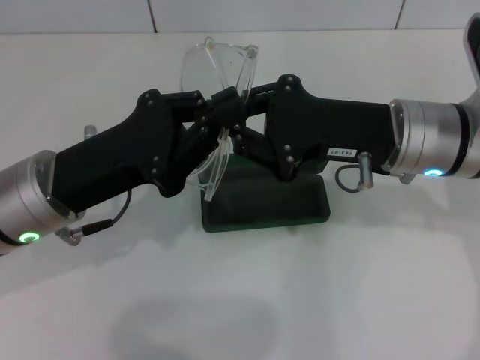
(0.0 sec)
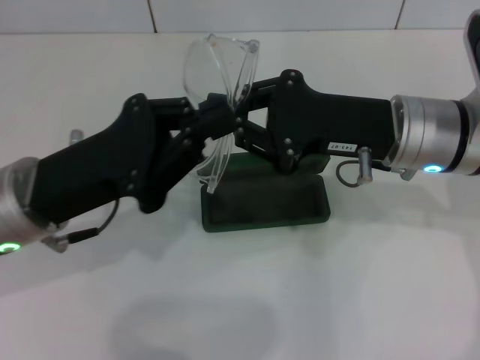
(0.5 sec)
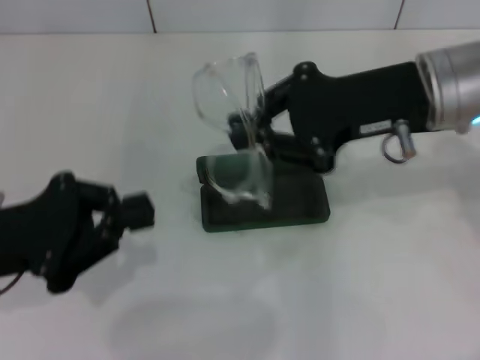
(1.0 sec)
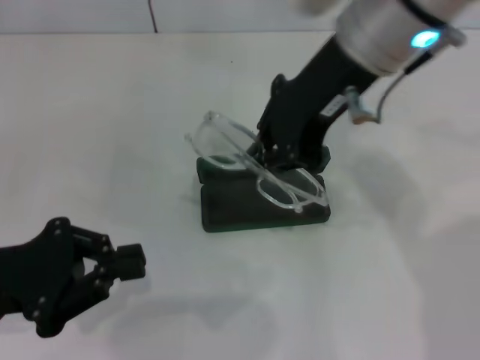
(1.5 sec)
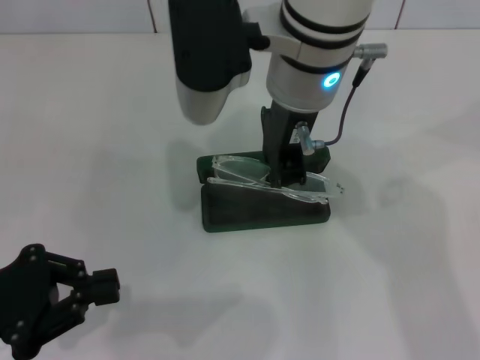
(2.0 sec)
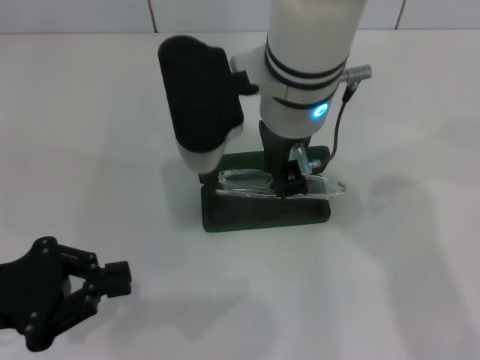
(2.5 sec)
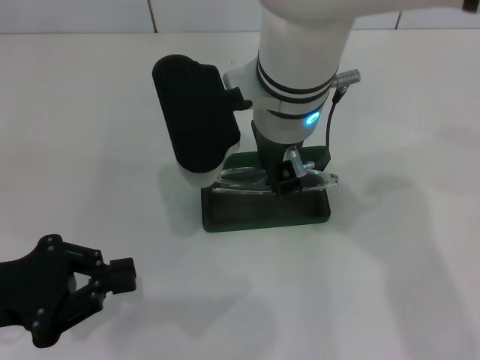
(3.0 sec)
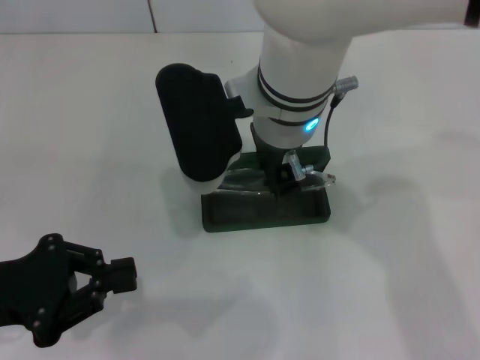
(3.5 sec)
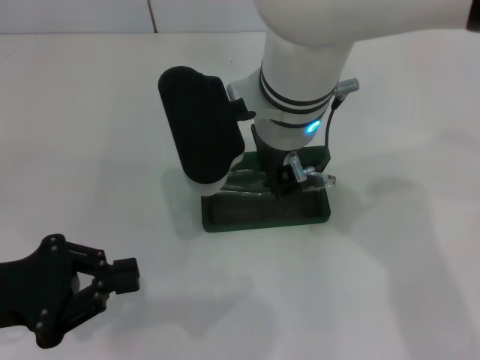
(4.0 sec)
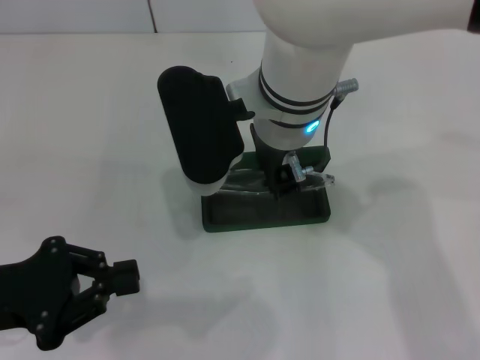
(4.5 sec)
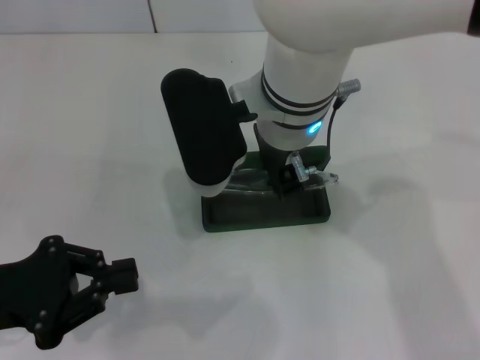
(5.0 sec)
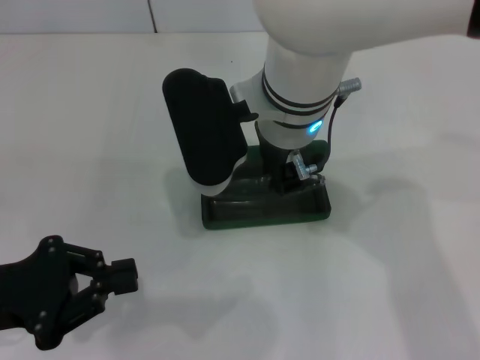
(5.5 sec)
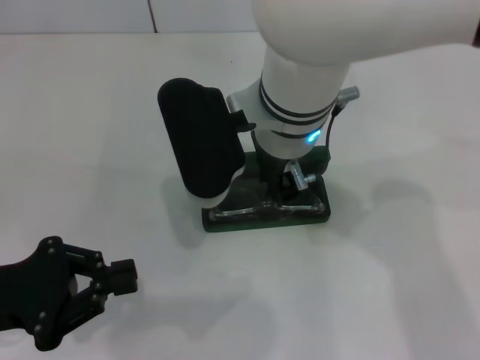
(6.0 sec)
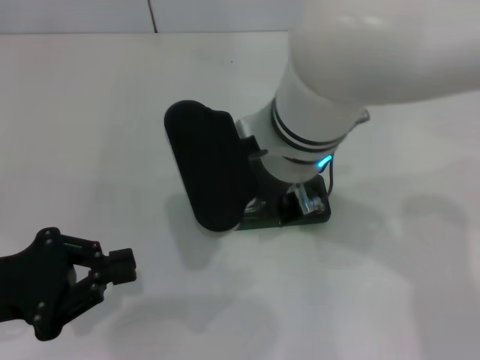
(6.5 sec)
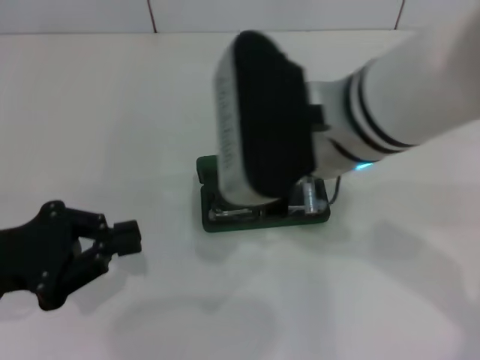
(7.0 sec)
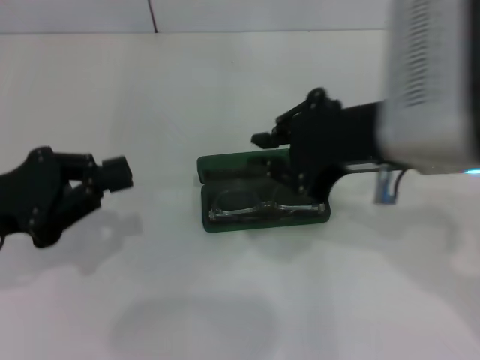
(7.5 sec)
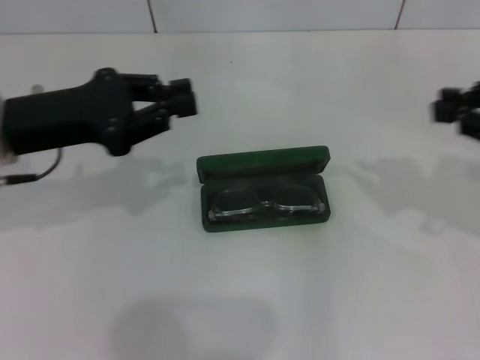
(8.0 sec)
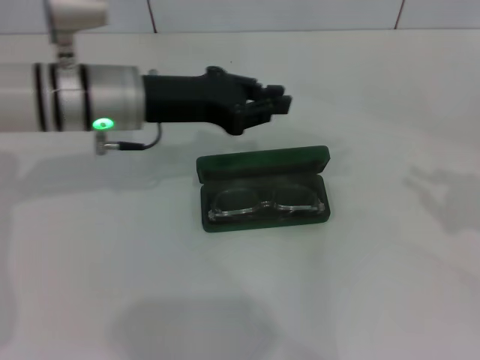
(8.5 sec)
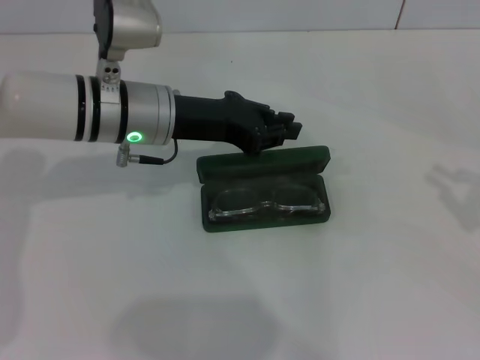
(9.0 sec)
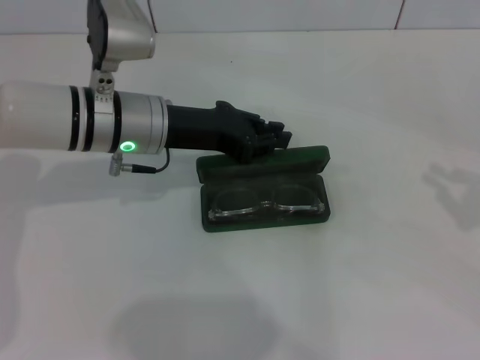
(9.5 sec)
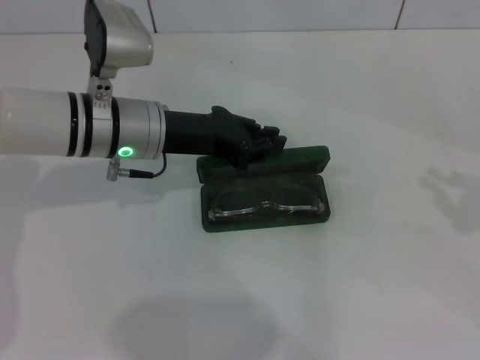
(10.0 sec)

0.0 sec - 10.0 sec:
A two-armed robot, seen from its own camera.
Step, 0.0 sec - 5.5 sec: Put the glasses into the case with your right hand.
0.0 sec - 2.0 sec: The right gripper shifts about 15 cm to the left and upward, while the left gripper moves to the left and backward, approximately 15 cm.
2.0 sec - 4.0 sec: The right gripper changes place by roughly 5 cm.
4.0 sec - 6.0 sec: Neither gripper changes place.
6.0 sec - 8.0 sec: The right gripper goes about 30 cm to the right. The left gripper heads forward and upward, covering approximately 10 cm.
8.0 sec - 10.0 sec: The right gripper shifts roughly 10 cm to the right and downward, while the left gripper goes approximately 15 cm to the right and forward.

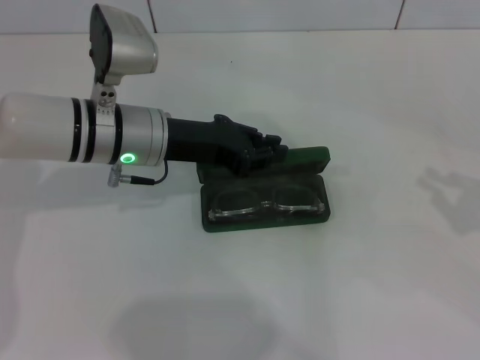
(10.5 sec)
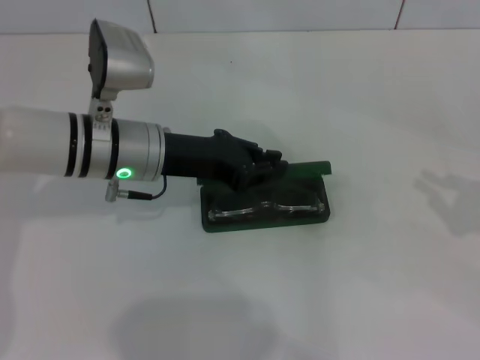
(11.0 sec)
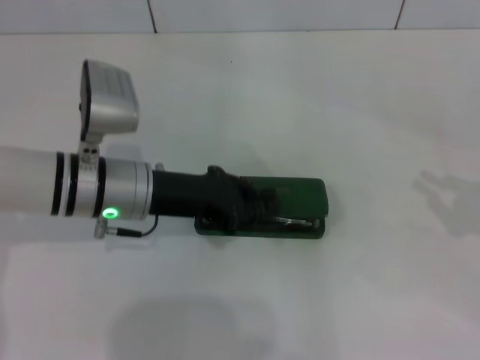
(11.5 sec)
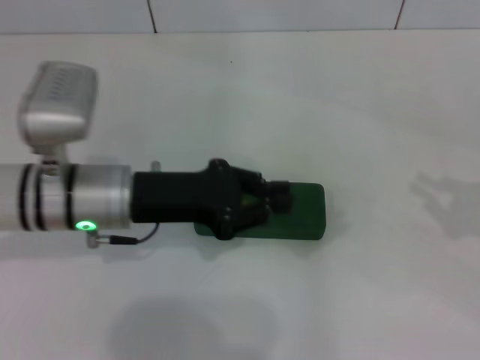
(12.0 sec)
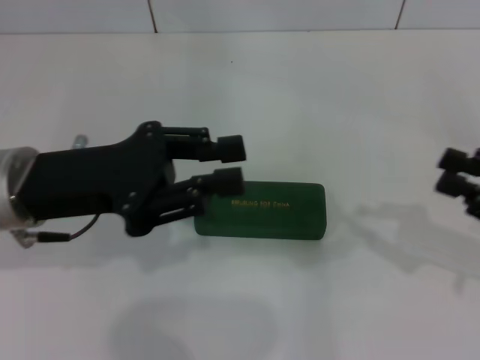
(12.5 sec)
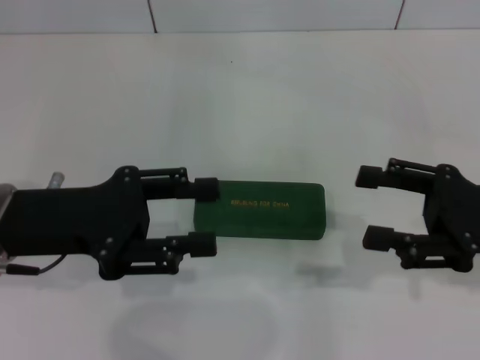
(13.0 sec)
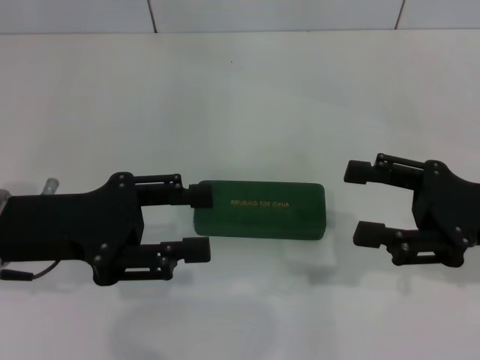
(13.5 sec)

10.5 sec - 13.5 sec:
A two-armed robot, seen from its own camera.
10.5 sec - 12.0 sec: The left gripper goes approximately 5 cm backward.
12.0 sec - 13.5 sec: Both grippers travel together to the left, some 10 cm. The right gripper opens up, while the left gripper opens.

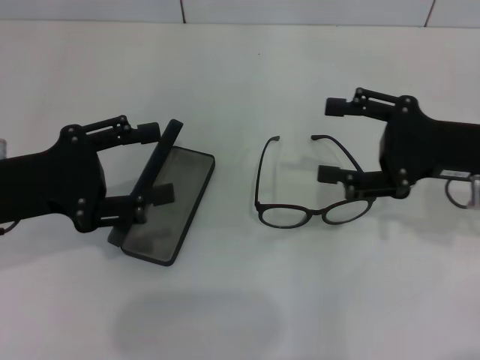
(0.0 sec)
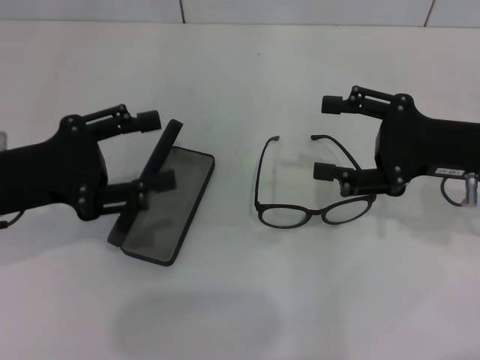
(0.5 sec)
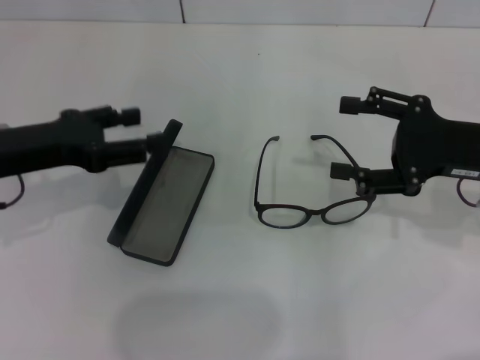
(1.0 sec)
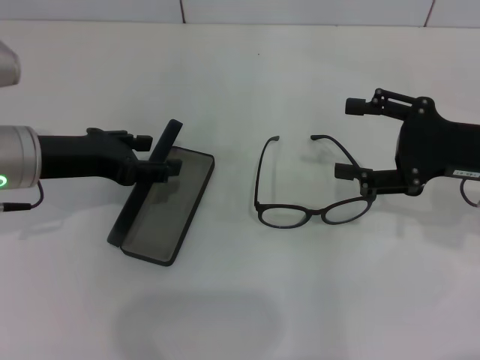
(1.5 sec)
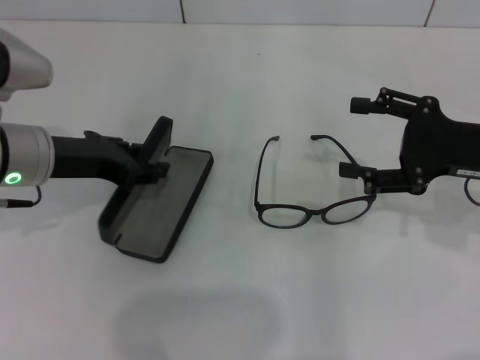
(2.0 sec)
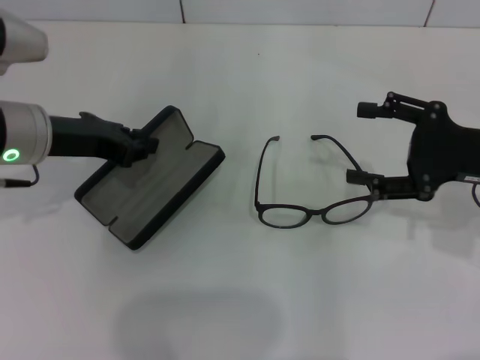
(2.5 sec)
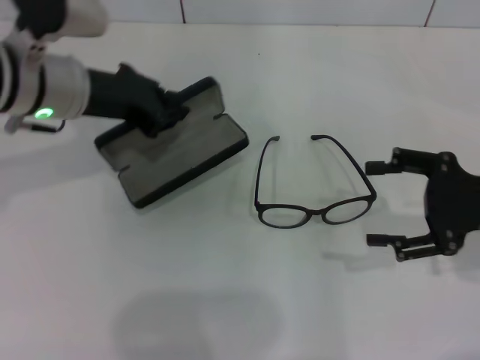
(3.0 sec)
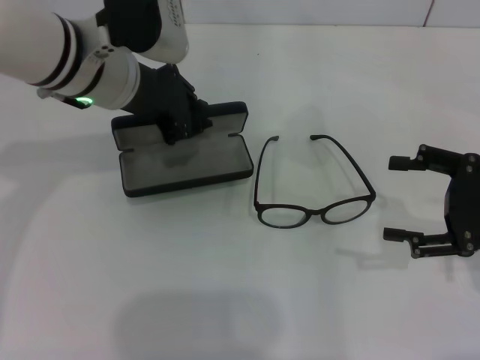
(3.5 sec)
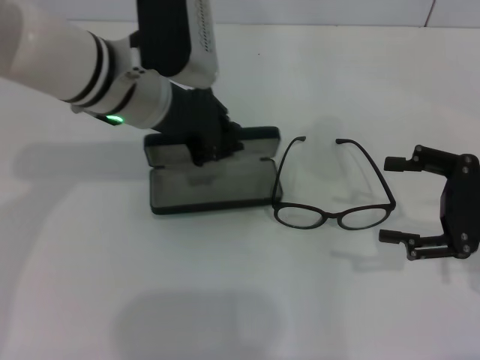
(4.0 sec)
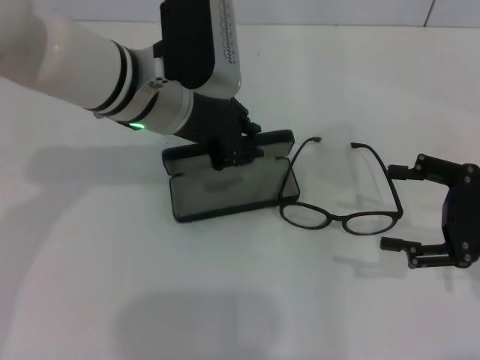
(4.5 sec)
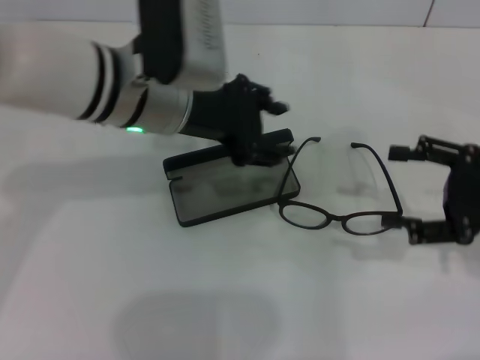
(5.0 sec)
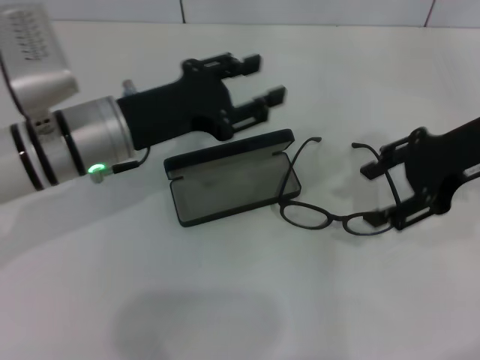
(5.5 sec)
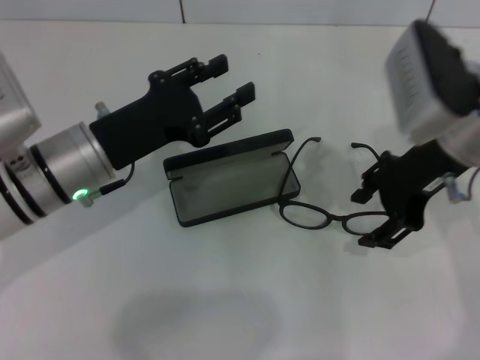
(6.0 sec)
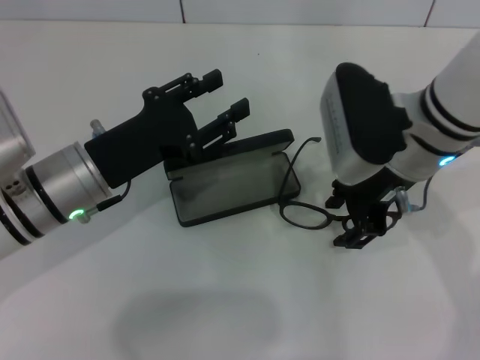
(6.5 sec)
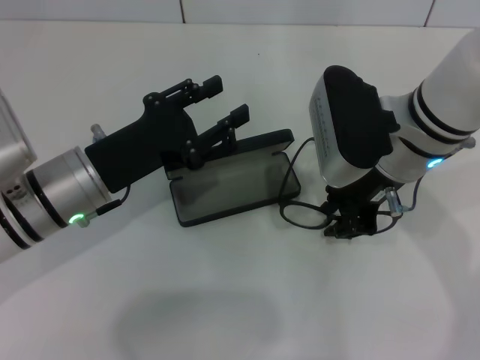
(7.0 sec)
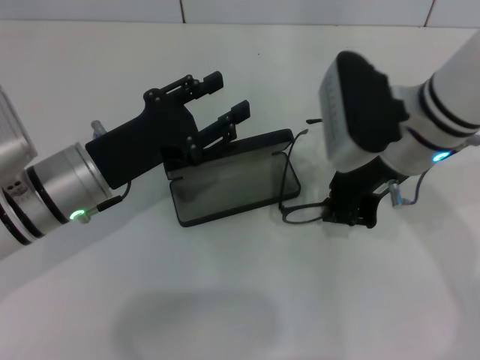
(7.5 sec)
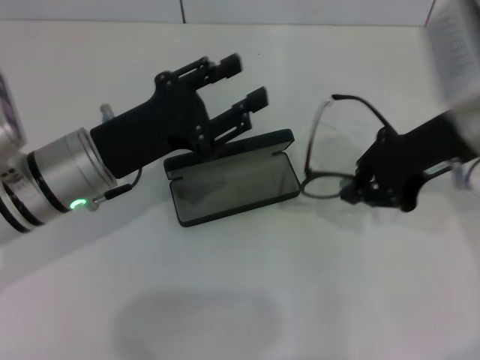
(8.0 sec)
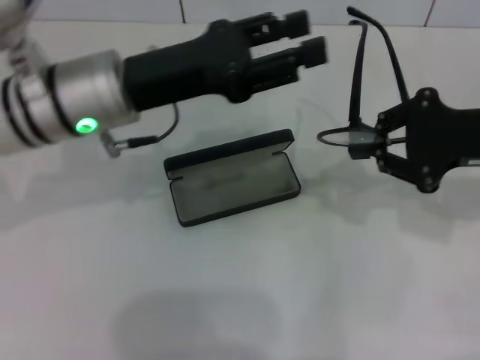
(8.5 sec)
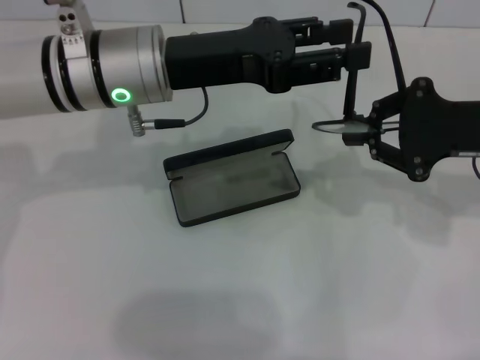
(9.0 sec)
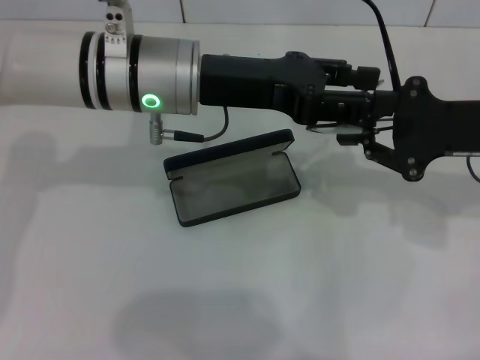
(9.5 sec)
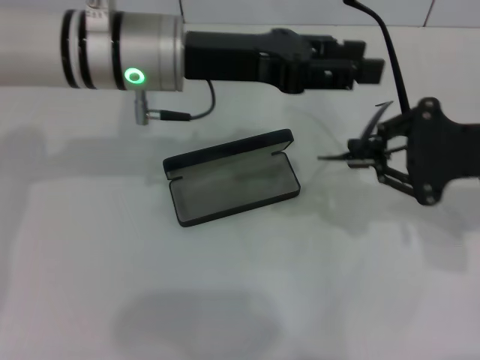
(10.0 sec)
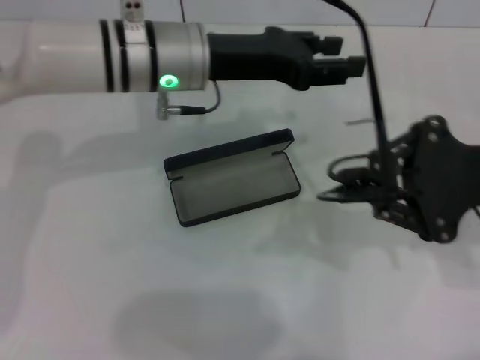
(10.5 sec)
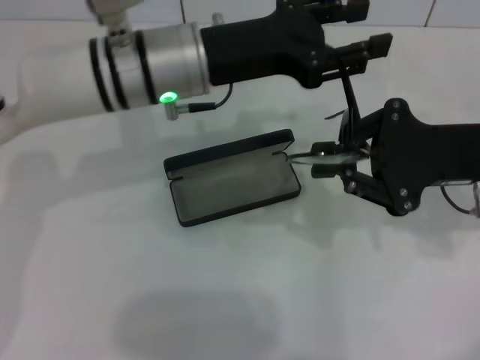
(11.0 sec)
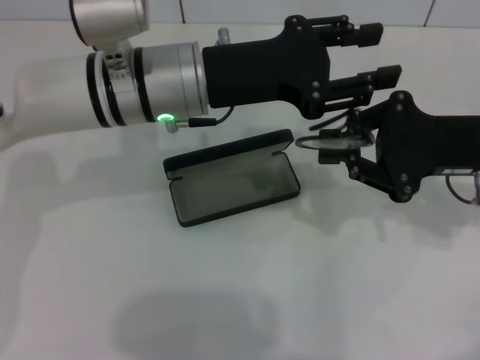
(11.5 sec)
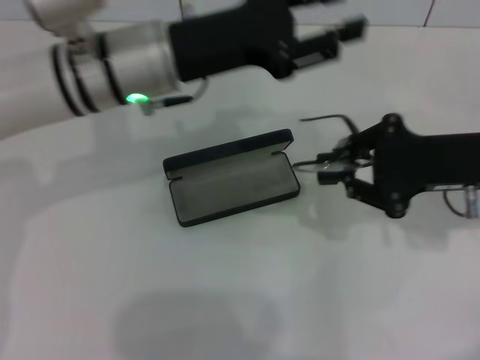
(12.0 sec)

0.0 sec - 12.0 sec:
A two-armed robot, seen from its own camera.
Step, 0.0 sec - 2.0 sec: Grab the glasses case with your left hand.
Step, 2.5 sec - 4.0 sec: Place the glasses case in the center of the table with your left hand.
Step, 5.0 sec - 7.0 sec: Grab the eyeglass frame with your right hand.
Step, 7.5 sec - 11.0 sec: Fold the frame with your left hand.
0.0 sec - 2.0 sec: The left gripper is displaced forward by approximately 5 cm.
2.0 sec - 4.0 sec: The left gripper goes roughly 10 cm to the right, and closes up. Meanwhile the right gripper shifts by approximately 5 cm.
4.0 sec - 6.0 sec: The right gripper is displaced to the left, forward and upward by some 15 cm. Meanwhile the left gripper goes approximately 10 cm downward, to the left and backward, and opens up.
6.0 sec - 8.0 sec: The right gripper reaches approximately 5 cm to the left, then returns, and closes.
8.0 sec - 10.0 sec: The right gripper moves to the right, roughly 5 cm; the left gripper goes some 15 cm upward, forward and to the right.
